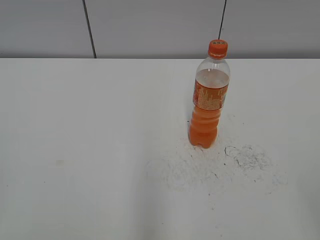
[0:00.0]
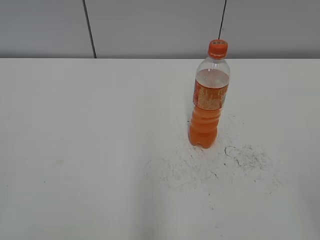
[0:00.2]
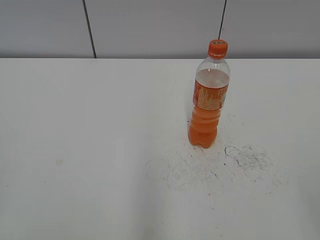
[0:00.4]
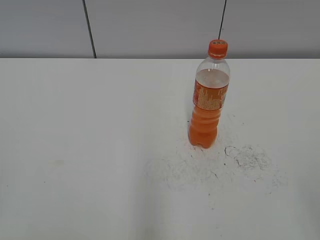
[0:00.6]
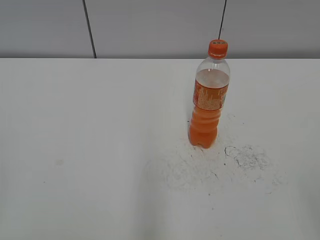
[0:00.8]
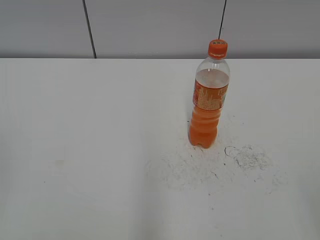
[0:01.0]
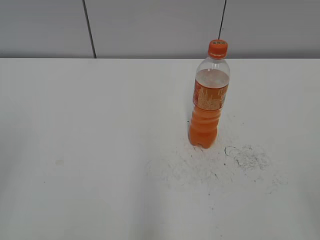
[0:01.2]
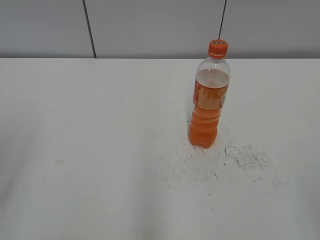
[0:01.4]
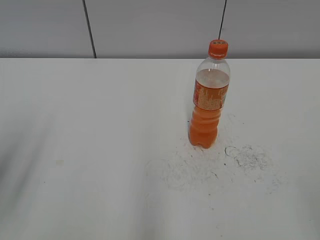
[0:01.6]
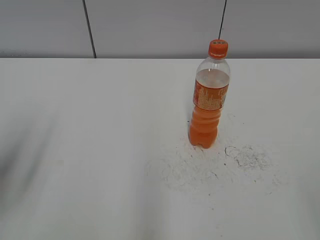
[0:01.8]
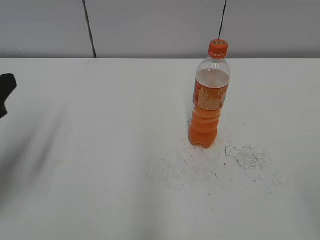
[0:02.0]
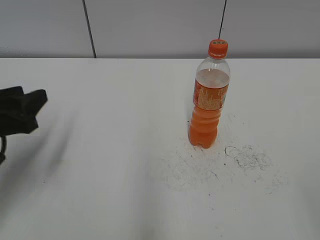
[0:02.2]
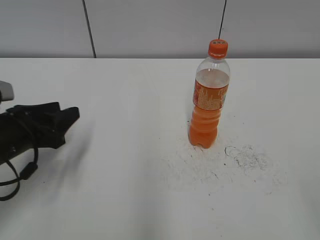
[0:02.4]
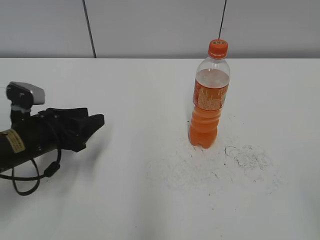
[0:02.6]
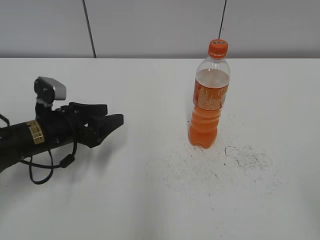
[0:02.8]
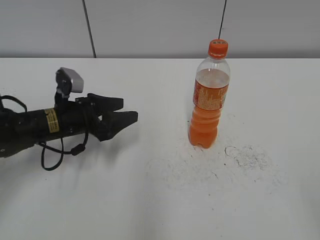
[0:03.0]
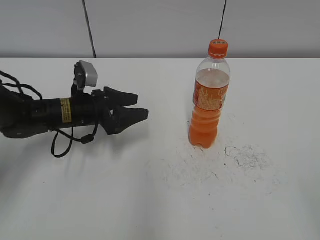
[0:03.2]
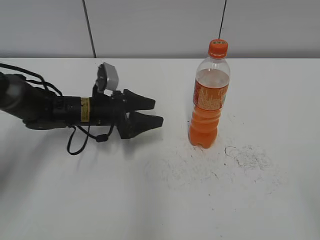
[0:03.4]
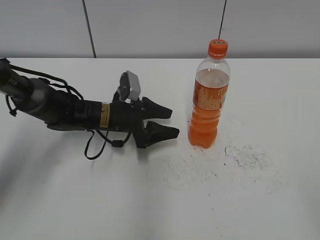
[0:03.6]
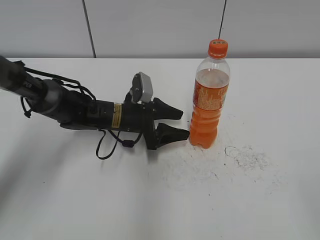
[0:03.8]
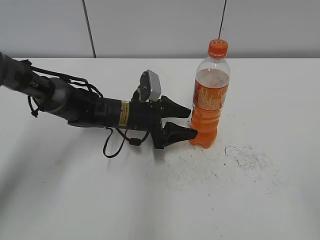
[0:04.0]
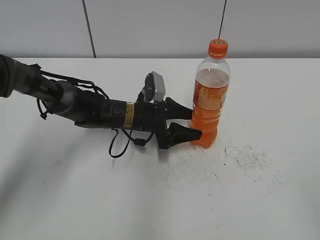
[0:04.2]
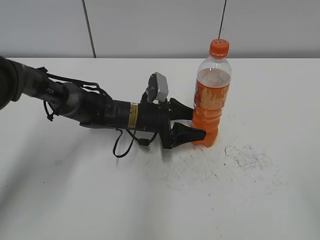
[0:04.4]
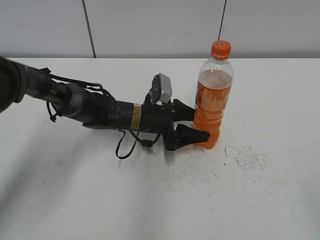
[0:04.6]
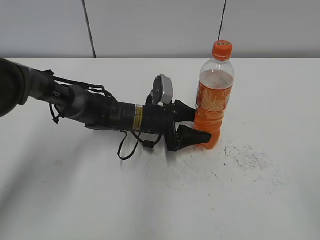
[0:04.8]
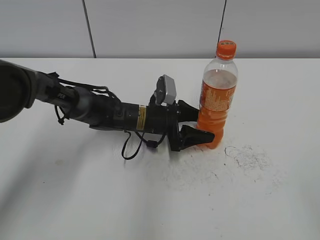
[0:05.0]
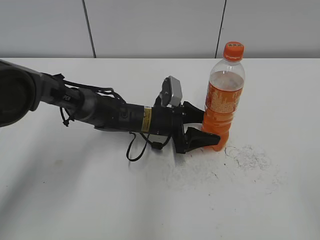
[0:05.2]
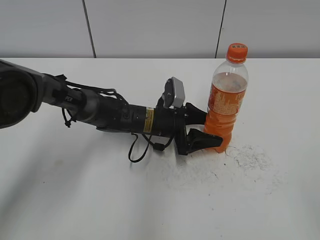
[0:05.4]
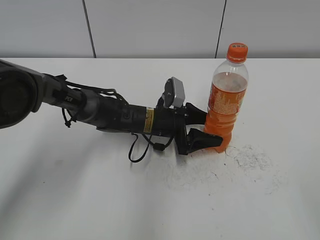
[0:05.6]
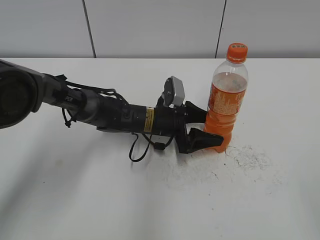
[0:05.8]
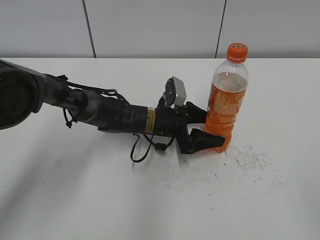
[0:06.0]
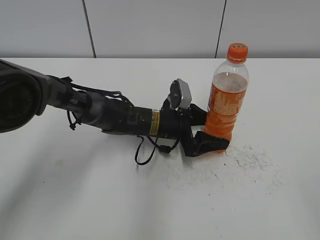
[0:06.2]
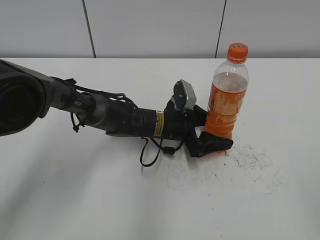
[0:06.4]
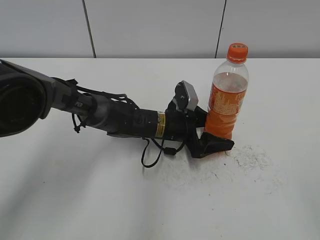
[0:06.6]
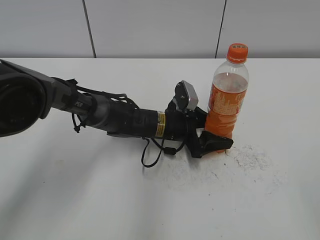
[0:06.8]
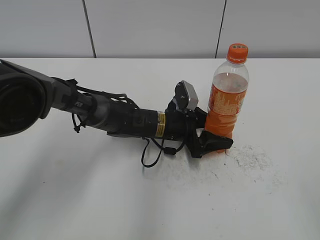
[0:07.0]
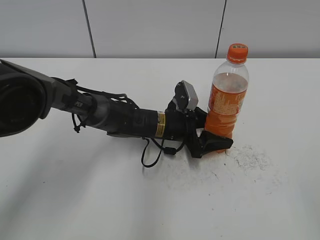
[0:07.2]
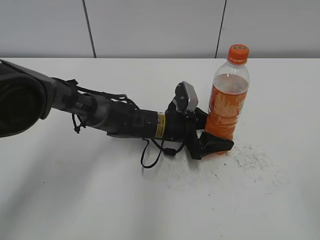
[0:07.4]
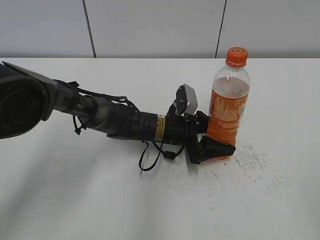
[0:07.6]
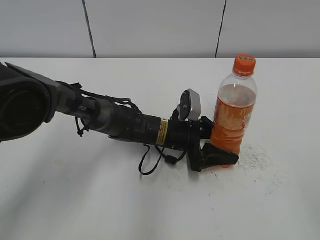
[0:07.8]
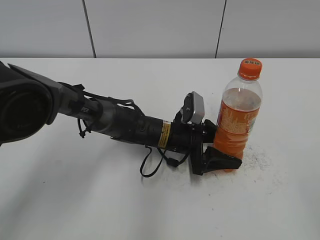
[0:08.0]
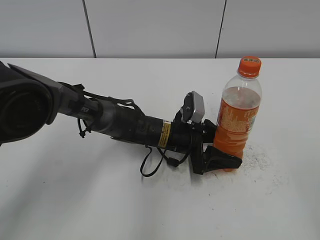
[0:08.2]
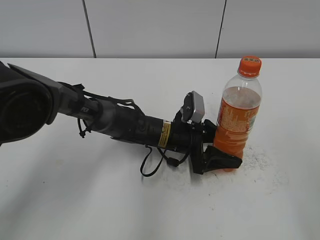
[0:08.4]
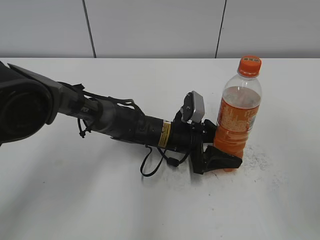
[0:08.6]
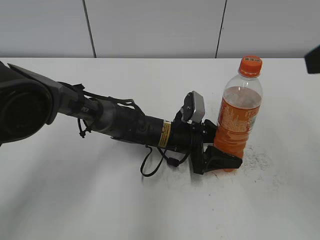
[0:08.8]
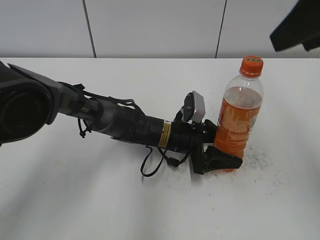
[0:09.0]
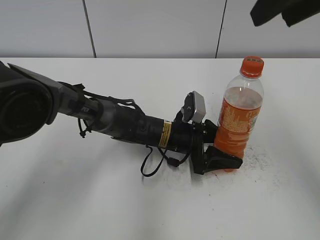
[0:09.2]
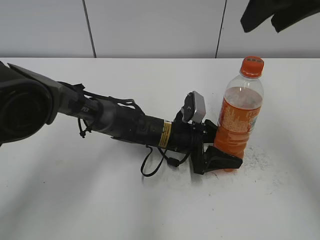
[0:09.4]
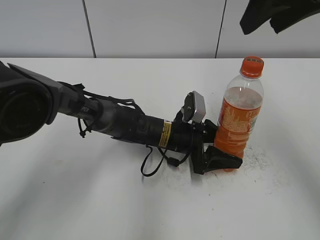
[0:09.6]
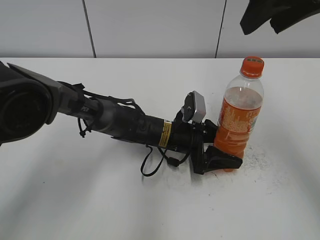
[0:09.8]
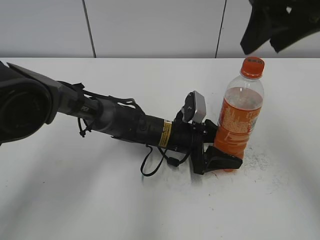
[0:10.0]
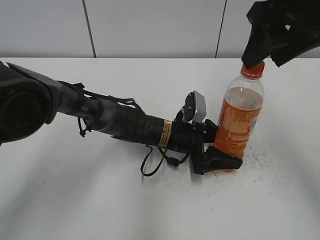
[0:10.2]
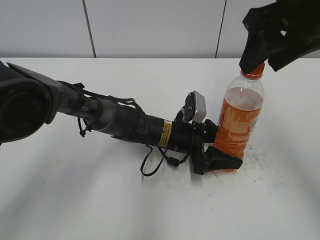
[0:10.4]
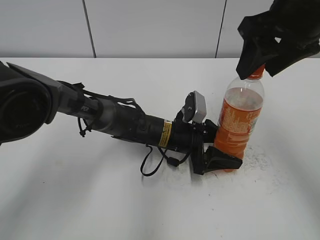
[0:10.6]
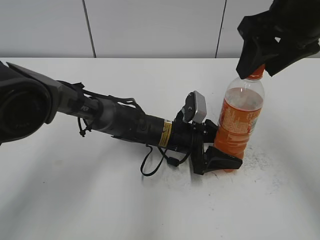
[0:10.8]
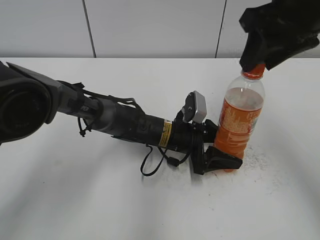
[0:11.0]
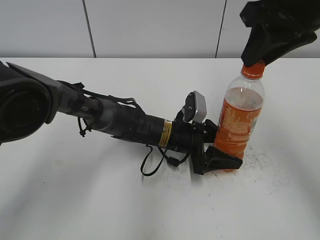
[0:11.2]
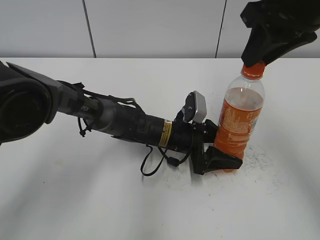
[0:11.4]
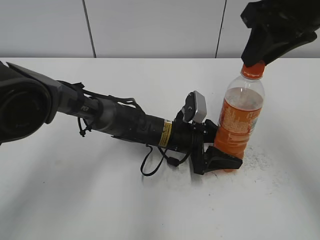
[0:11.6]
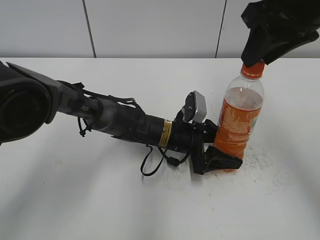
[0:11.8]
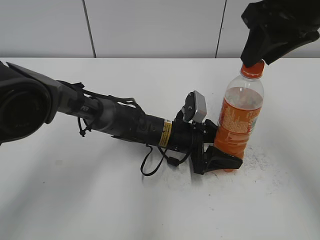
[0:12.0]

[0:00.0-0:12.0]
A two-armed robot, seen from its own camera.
Step, 0:00.0 to 0:07.2: Grab the Mirinda with the left hand.
Step, 0:07.4 to 0:08.4: Move the Mirinda to the right with the left hand.
0:01.6 to 0:03.0: The left gripper travels forward, downward and to the right by roughly 30 cm, and opens up.
0:03.0 to 0:04.4: The left gripper shifts approximately 15 cm to the right.
0:04.4 to 0:06.0: The grippers move only a little.
0:06.0 to 0:07.6: The left gripper closes its fingers.
0:07.6 to 0:09.0: The right gripper heads forward and upward, covering roughly 25 cm.
0:09.0 to 0:10.4: The right gripper moves forward, about 5 cm.
0:10.4 to 0:12.0: The right gripper closes its fingers.

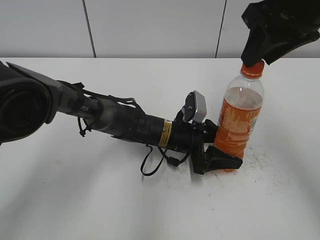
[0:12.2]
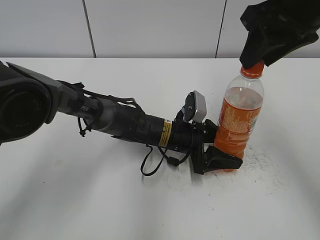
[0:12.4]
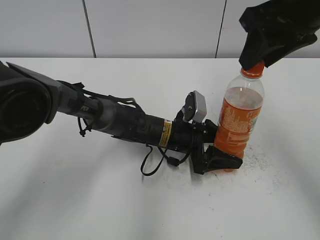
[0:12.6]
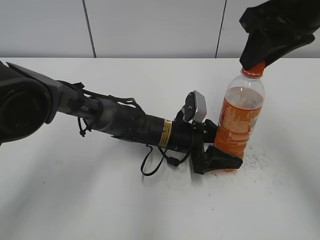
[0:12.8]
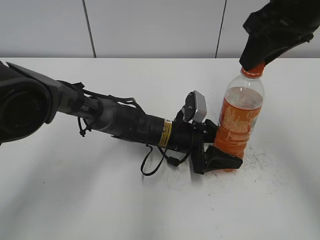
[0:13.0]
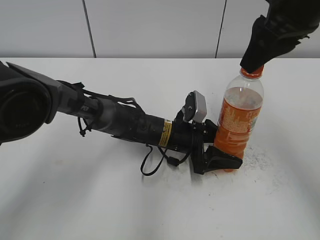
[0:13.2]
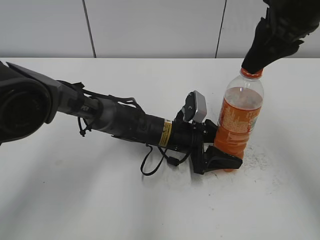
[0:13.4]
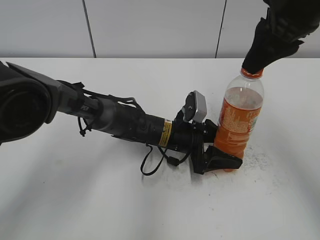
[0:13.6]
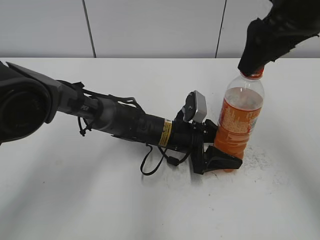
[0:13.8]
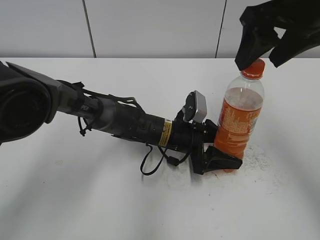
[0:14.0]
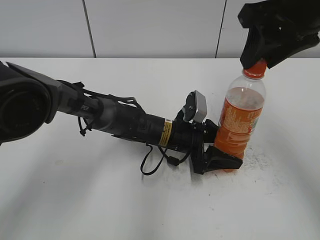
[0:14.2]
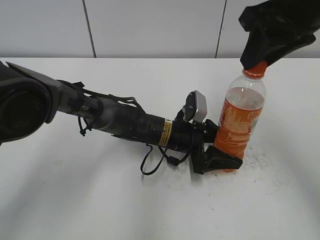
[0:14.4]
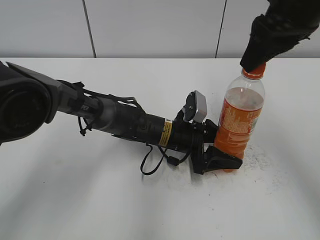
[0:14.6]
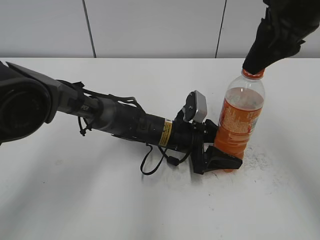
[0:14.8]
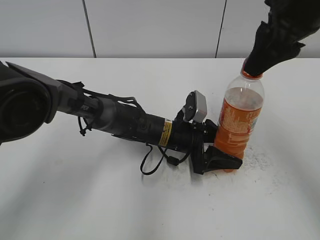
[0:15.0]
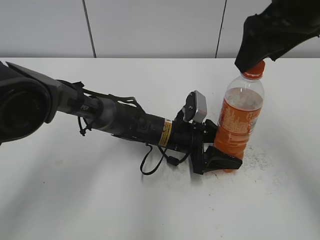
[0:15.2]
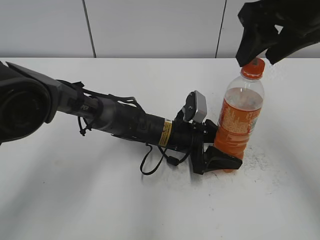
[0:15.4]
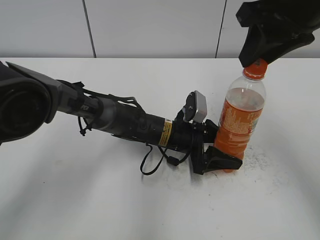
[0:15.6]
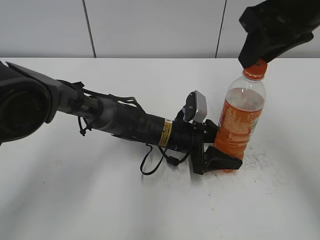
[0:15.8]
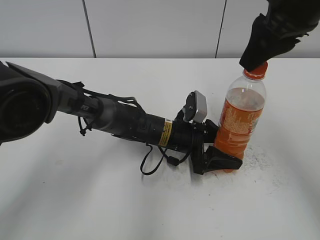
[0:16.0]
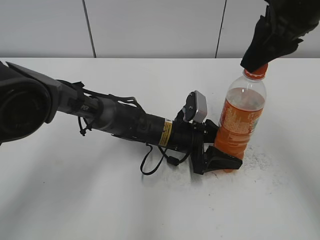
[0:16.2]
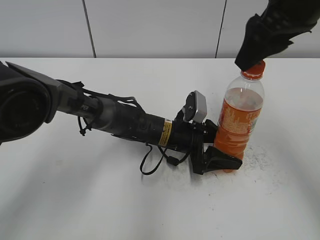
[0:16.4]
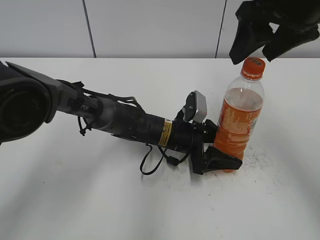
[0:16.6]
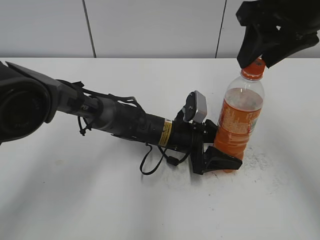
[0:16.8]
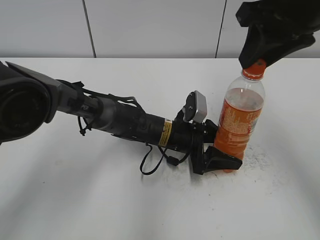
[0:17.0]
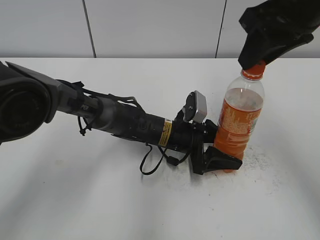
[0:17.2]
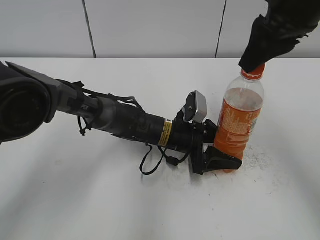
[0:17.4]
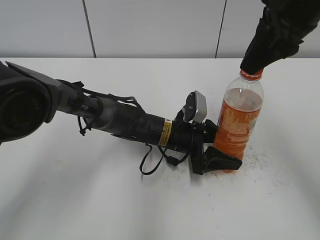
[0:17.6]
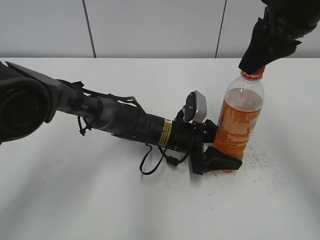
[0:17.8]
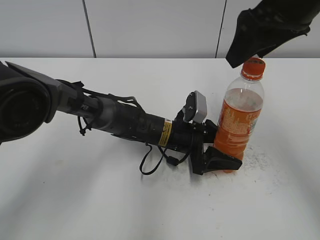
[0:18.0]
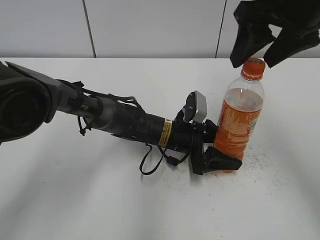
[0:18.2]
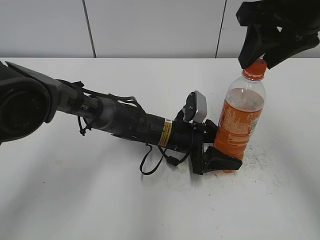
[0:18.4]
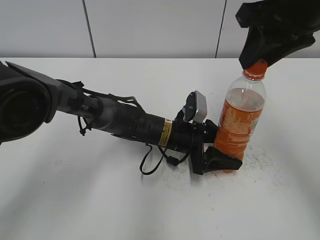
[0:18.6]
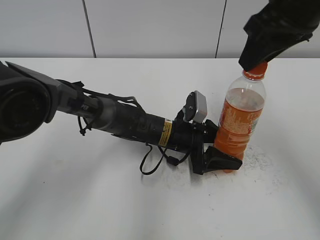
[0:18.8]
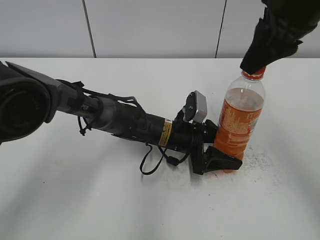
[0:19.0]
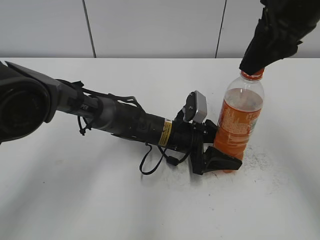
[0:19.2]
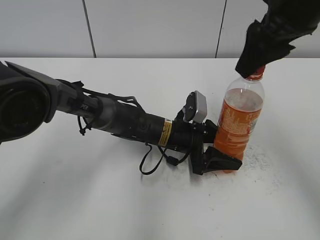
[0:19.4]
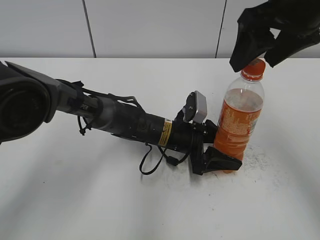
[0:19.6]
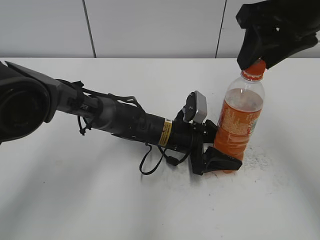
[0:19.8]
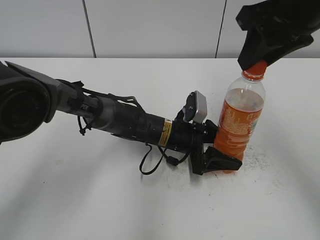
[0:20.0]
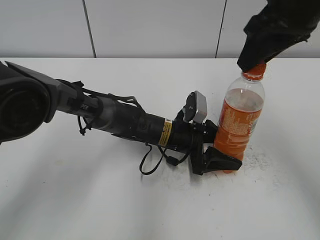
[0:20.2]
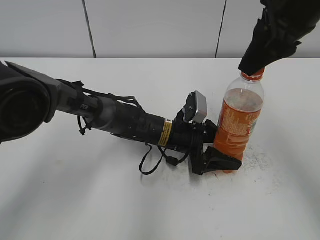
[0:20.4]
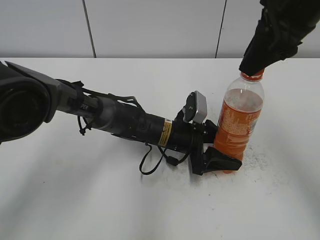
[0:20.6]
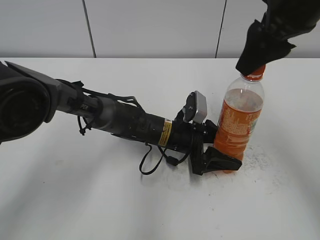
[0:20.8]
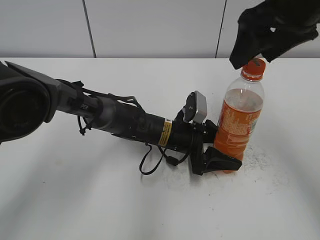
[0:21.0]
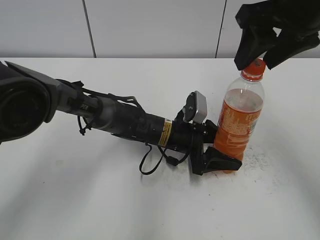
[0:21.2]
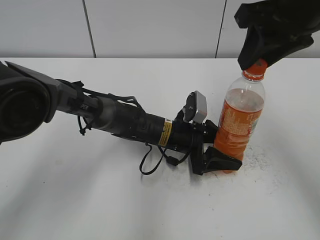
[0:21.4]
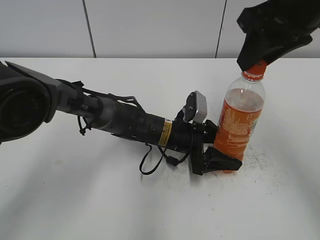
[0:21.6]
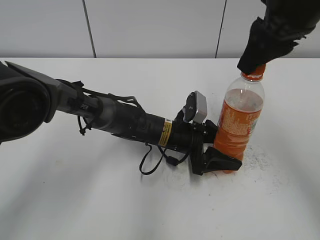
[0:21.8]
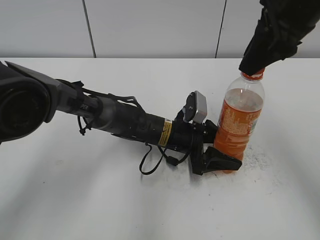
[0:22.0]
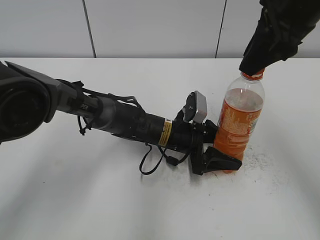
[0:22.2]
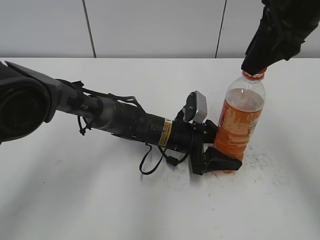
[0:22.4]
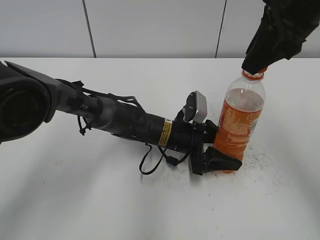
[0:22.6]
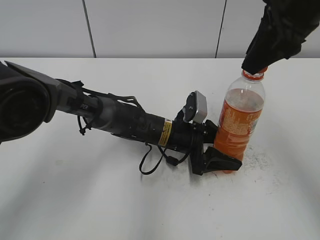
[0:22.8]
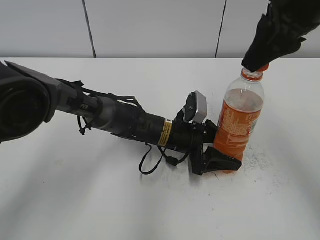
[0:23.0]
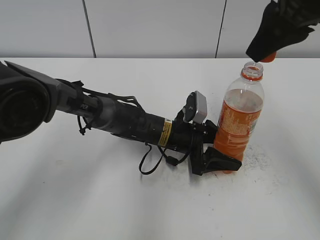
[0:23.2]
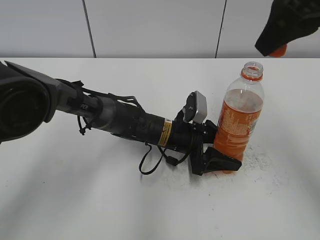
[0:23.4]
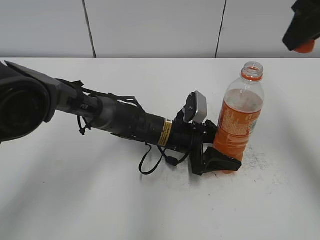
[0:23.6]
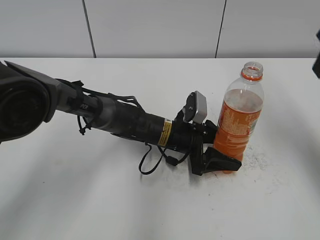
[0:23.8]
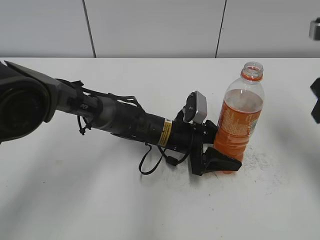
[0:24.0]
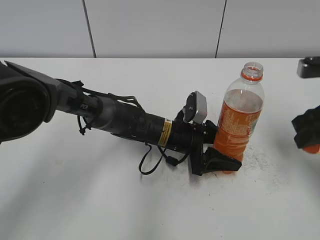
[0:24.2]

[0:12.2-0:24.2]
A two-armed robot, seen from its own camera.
0:12.2 to 0:13.8: The right gripper opens its fingers.
0:13.8 to 0:15.2: The right gripper closes and opens again.
0:15.2 to 0:16.6: The right gripper closes, then reopens.
0:16.6 to 0:18.2: The right gripper closes, then reopens.
0:18.2 to 0:19.8: The right gripper closes its fingers.
0:19.8 to 0:21.2: The right gripper closes, then reopens.
0:21.2 to 0:22.6: The right gripper closes up.
0:22.6 to 0:24.2: The right gripper is displaced downward and to the right by some 15 cm.
